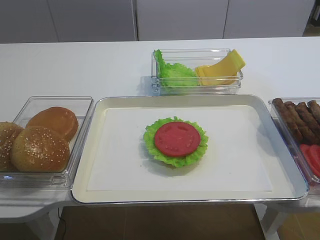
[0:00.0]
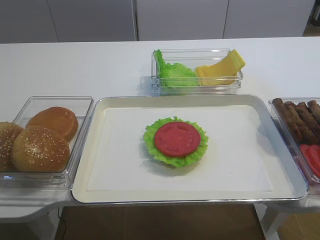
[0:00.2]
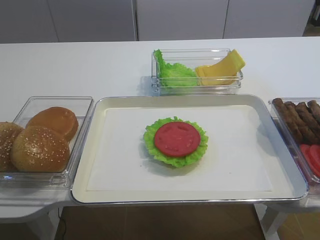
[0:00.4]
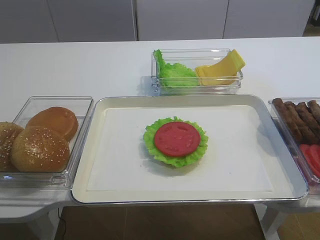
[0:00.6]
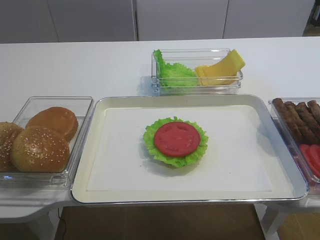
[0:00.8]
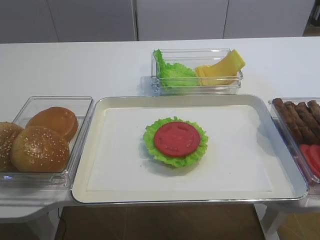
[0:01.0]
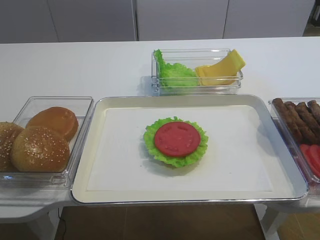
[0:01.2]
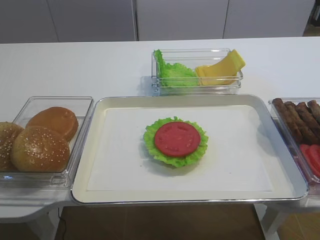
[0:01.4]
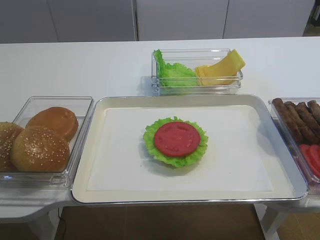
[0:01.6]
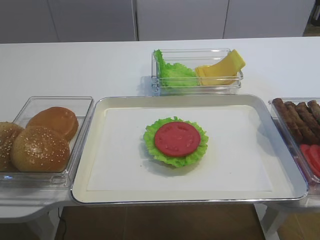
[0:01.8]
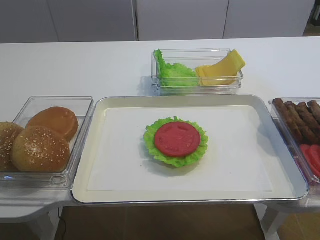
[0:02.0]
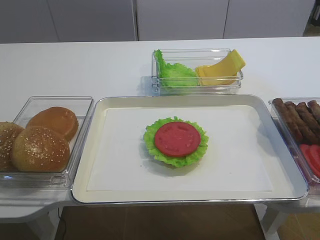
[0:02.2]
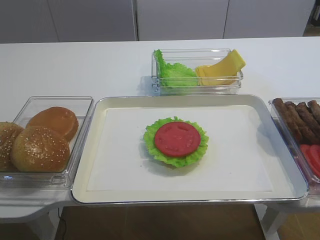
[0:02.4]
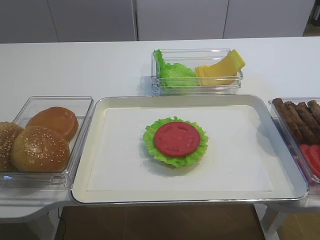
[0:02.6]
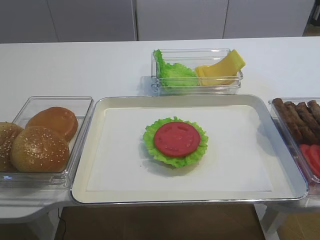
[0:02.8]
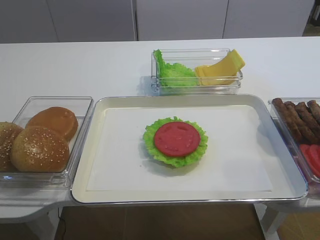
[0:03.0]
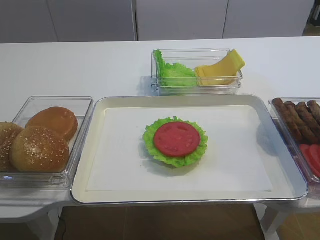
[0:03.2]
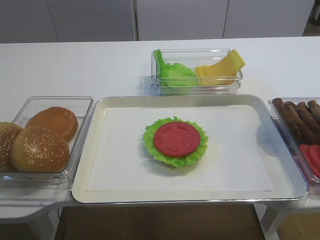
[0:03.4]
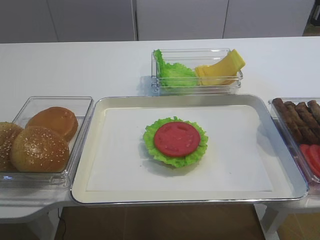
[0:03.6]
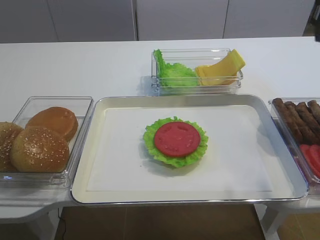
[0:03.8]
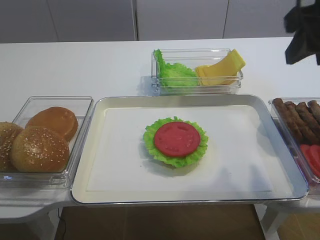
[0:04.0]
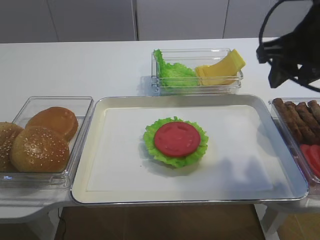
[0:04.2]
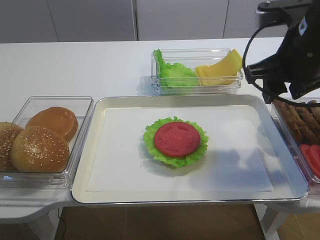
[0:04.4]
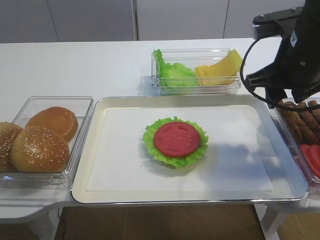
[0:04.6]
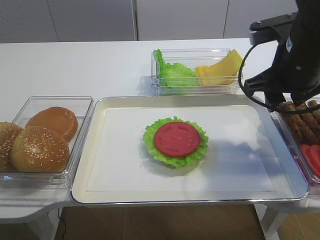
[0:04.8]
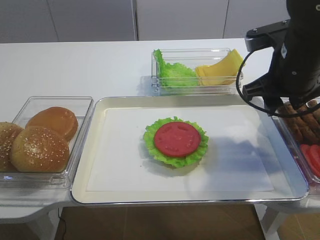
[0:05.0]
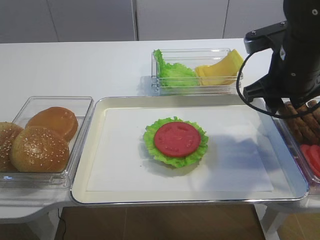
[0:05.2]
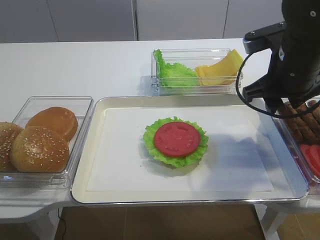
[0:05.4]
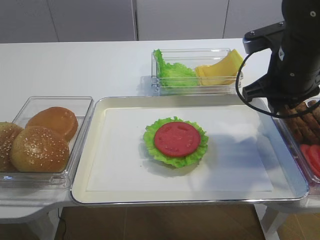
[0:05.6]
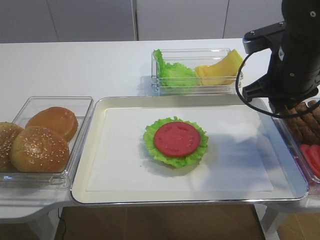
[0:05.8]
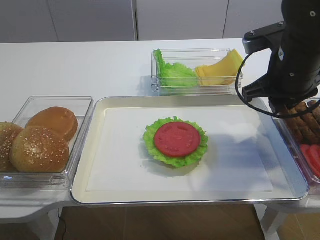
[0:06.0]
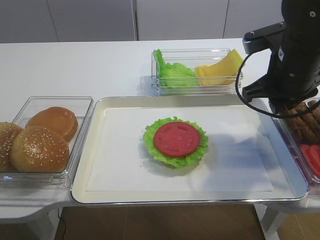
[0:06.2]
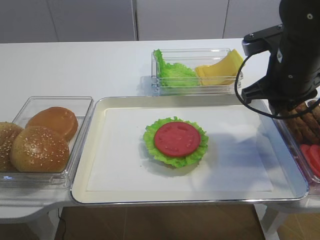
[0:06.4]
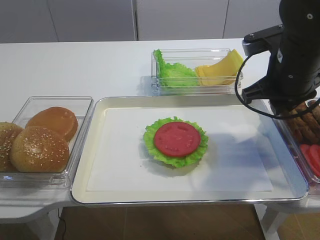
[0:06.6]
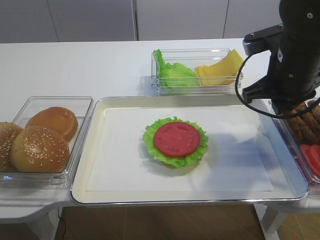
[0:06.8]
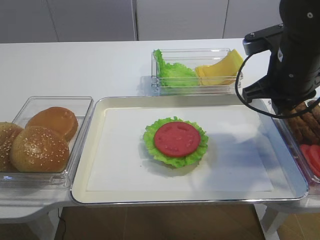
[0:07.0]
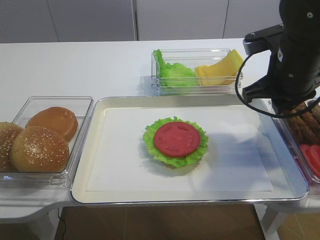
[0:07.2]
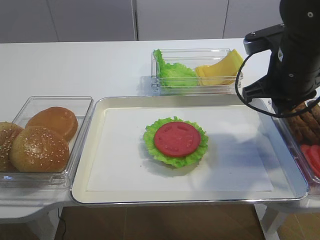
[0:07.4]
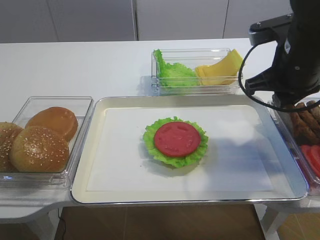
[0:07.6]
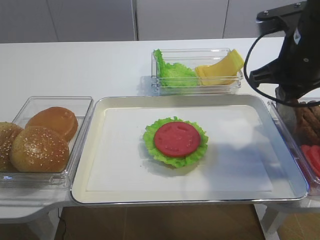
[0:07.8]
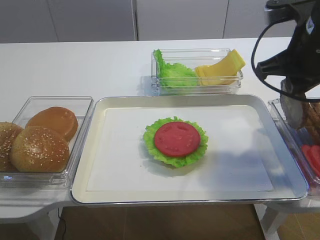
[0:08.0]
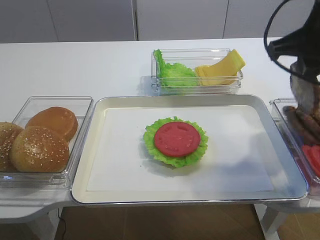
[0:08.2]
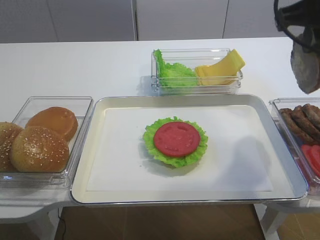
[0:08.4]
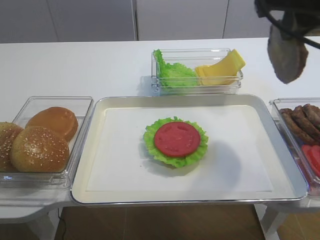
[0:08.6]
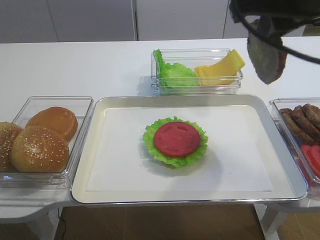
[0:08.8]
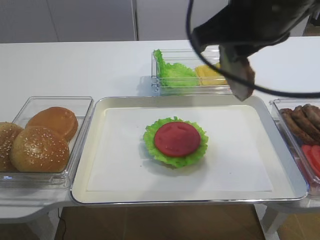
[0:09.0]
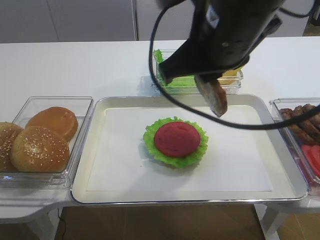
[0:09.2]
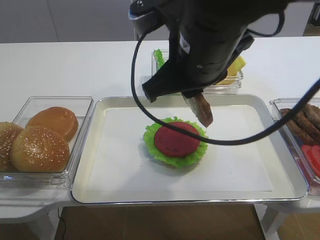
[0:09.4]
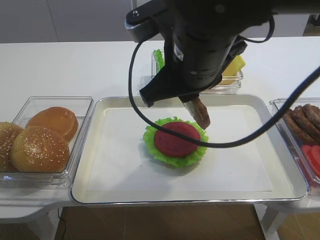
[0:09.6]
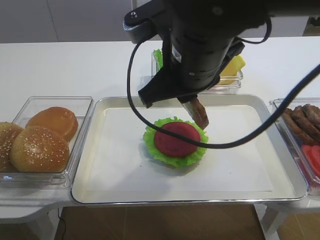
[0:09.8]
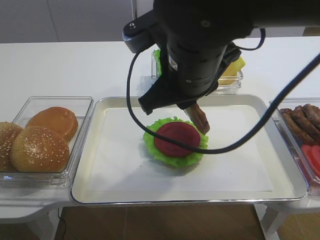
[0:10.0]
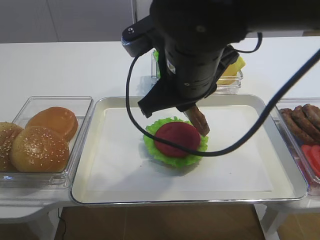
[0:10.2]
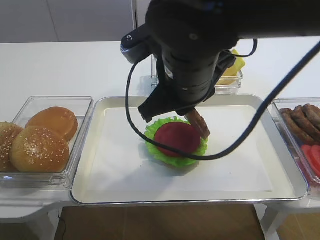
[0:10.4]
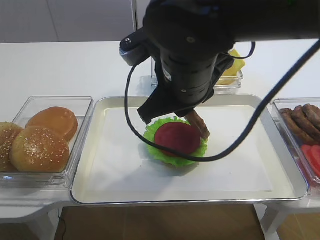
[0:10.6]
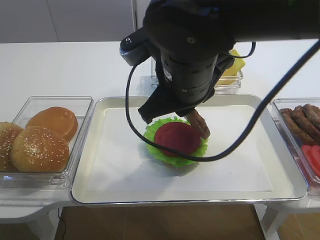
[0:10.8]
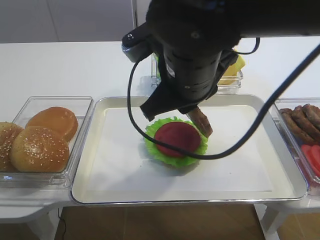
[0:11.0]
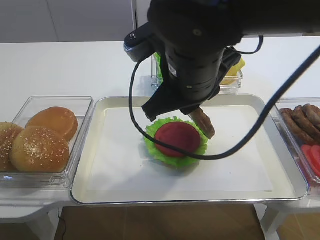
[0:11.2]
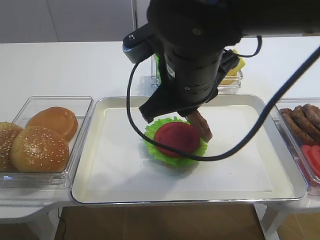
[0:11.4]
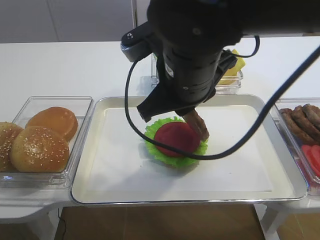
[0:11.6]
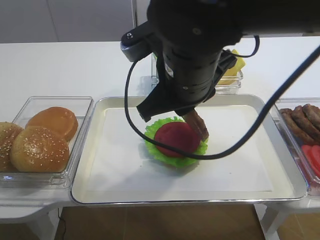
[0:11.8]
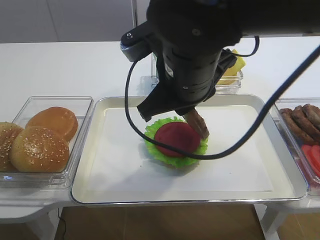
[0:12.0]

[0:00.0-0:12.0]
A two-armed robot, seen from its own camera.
Step, 0:00.0 to 0:08.6: Pick up the cutlet with the right gripper.
0:03.0 to 0:04.4: The right gripper moves forward, about 25 cm.
0:04.4 to 0:06.0: The grippers stay close to where they were, moving slightly.
0:06.0 to 0:07.6: Both grippers stay put.
0:07.6 to 0:09.0: The right gripper goes some 15 cm upward, to the left and backward.
0:09.0 to 0:10.4: The right gripper moves downward and to the left, some 10 cm.
0:10.4 to 0:12.0: The two grippers keep their place.

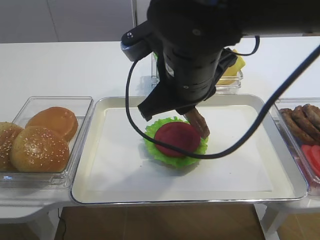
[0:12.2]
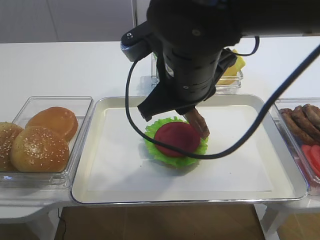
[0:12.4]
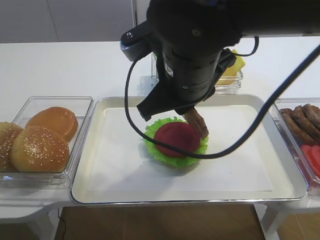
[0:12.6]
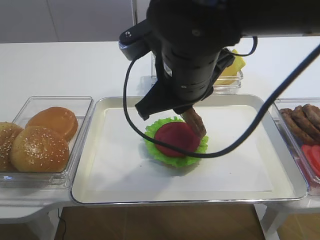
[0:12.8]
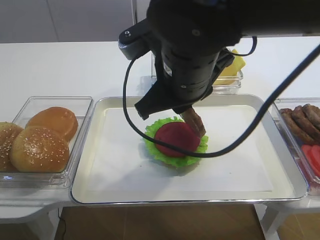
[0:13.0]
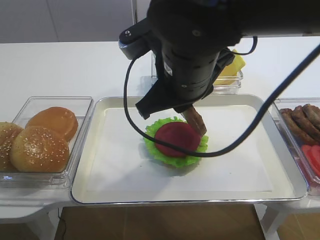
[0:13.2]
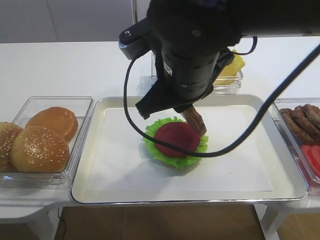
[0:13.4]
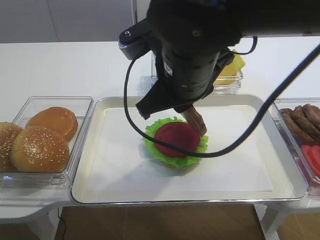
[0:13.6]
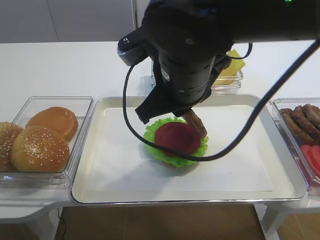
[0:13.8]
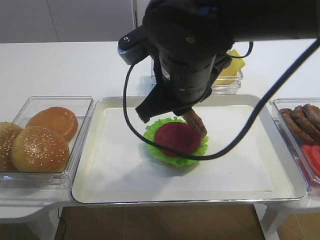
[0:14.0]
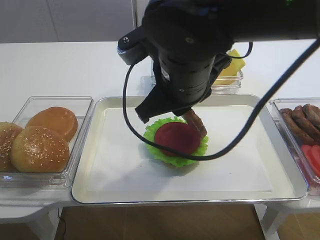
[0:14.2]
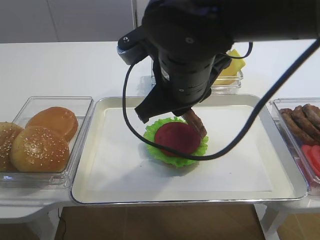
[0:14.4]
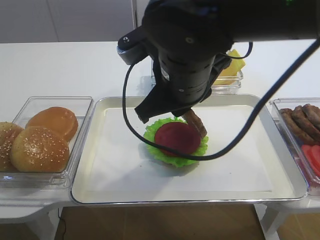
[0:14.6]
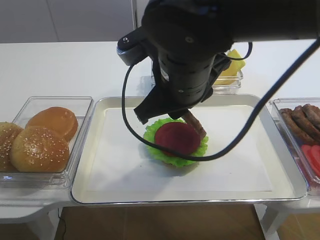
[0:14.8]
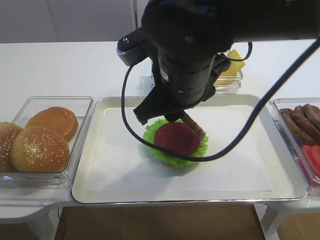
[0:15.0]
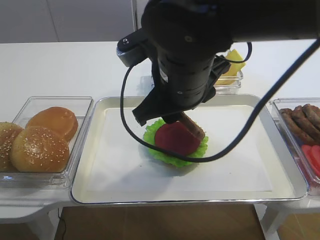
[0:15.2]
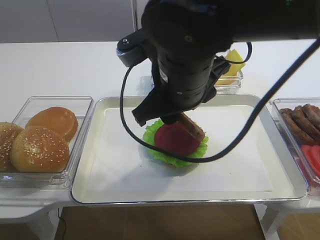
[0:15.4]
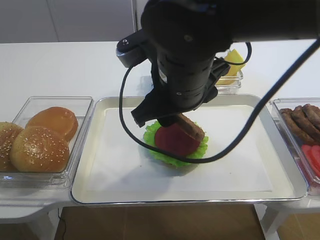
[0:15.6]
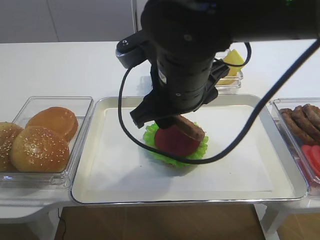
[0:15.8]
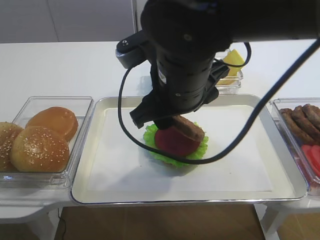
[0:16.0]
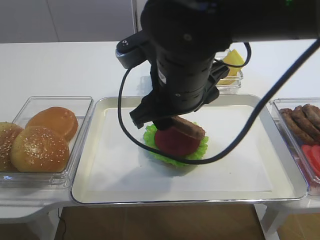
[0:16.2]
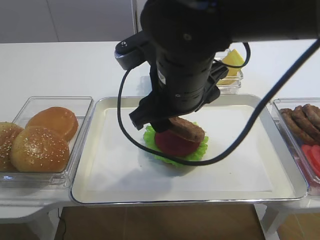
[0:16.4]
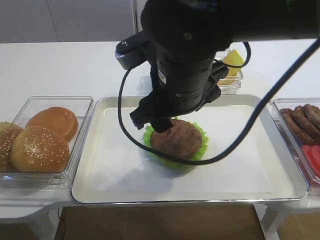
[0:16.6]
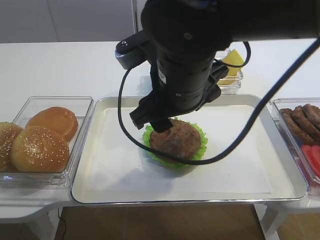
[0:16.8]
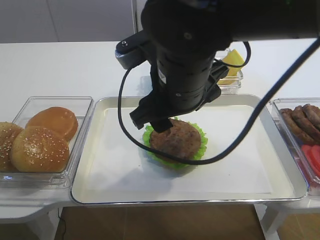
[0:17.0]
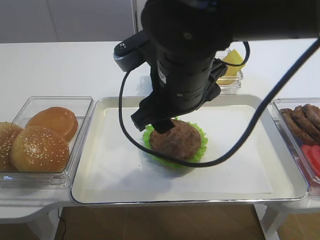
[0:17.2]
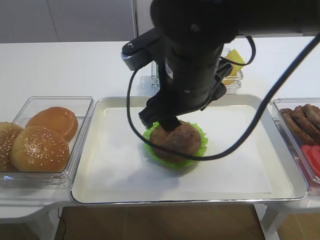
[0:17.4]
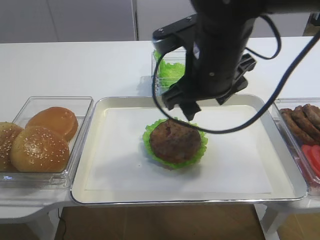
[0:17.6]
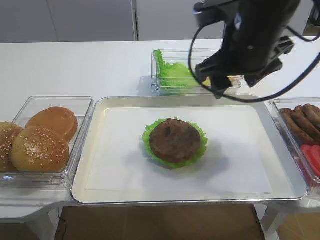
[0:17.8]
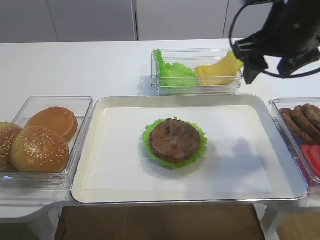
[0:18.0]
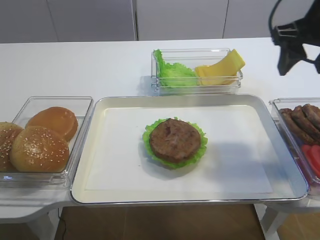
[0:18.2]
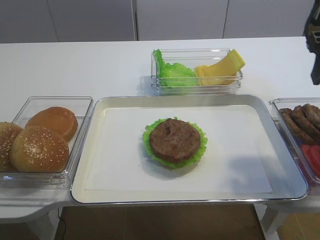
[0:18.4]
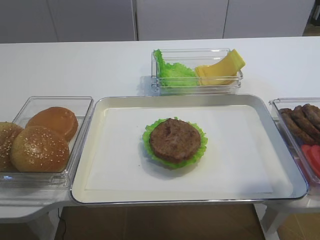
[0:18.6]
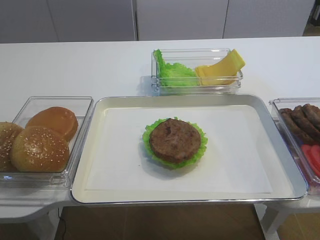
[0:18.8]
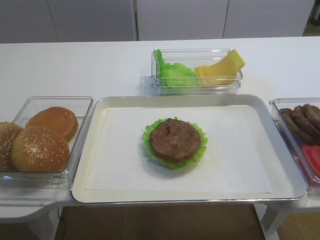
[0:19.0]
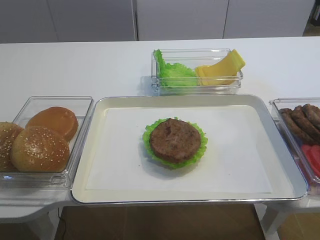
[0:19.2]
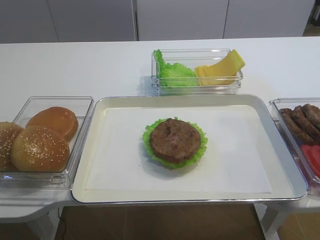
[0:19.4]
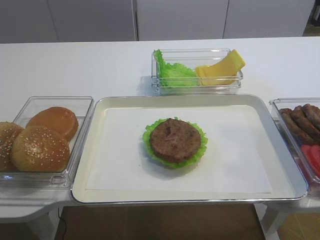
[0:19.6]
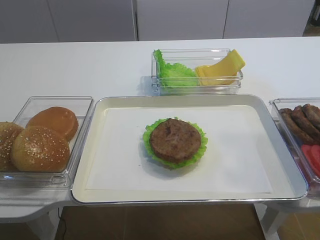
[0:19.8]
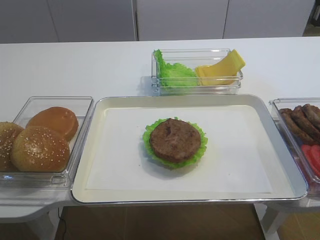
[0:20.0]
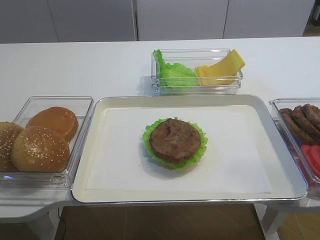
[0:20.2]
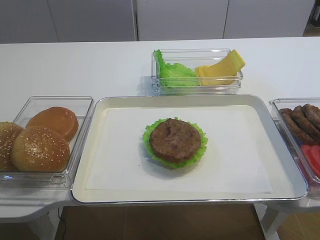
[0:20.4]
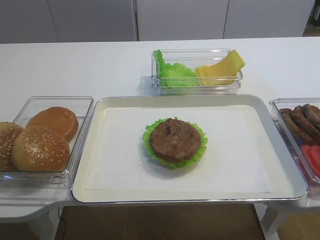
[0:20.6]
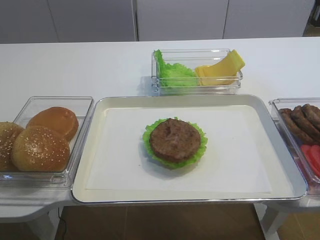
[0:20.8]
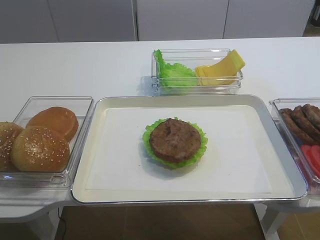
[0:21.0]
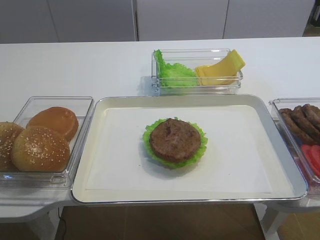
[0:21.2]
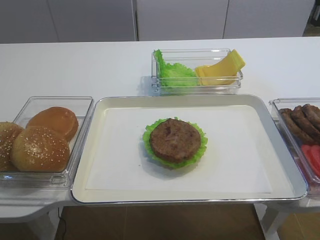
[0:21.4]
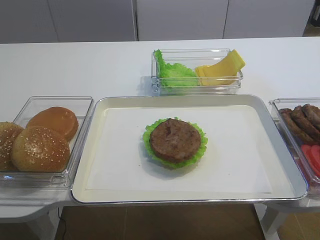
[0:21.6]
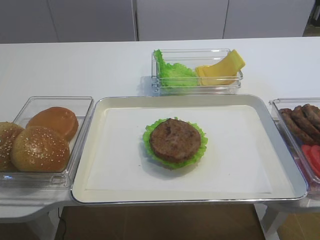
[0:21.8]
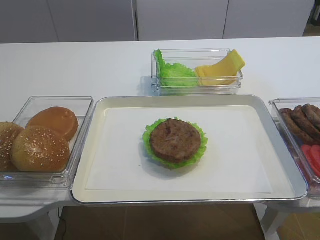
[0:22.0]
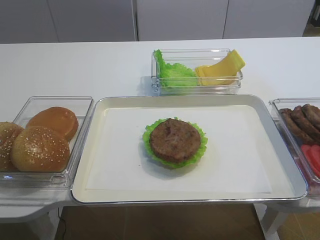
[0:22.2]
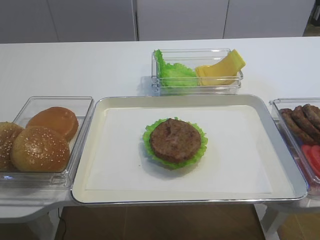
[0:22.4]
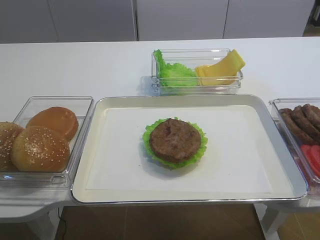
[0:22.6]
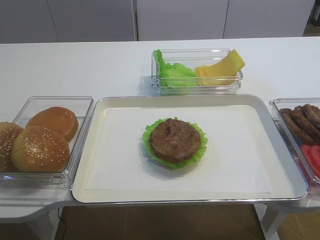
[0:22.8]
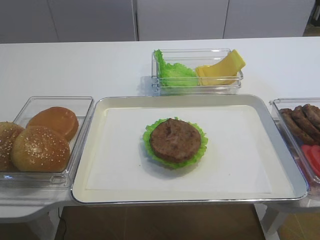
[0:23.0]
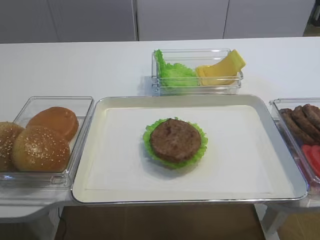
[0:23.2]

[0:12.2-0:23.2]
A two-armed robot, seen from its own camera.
Step, 0:12.2 to 0:17.4: Place the cutlet on the tomato slice with the right gripper.
0:12.2 to 0:13.8: Both grippers stay put.
0:13.8 to 0:15.4: The right gripper opens up.
0:15.4 to 0:17.0: The right gripper opens up.
0:17.0 to 0:18.4: The right gripper shifts roughly 25 cm to the right.
0:18.4 to 0:20.0: The right gripper shifts approximately 25 cm backward.
